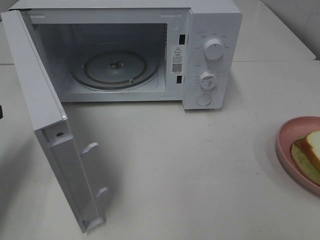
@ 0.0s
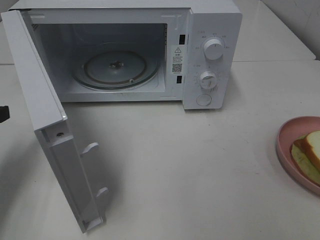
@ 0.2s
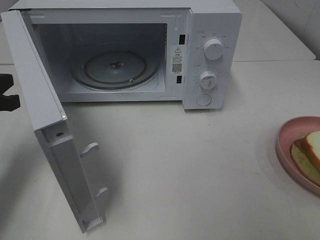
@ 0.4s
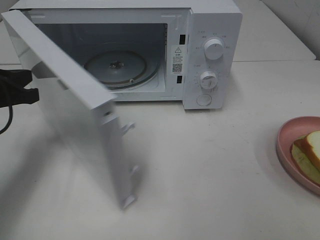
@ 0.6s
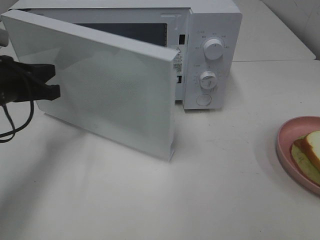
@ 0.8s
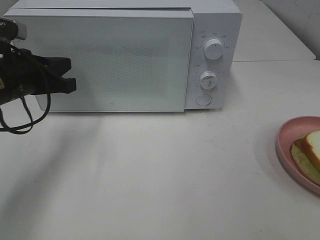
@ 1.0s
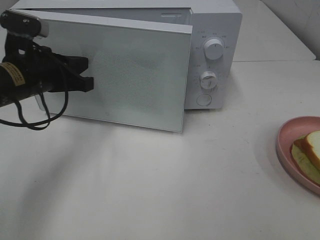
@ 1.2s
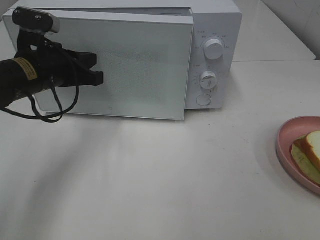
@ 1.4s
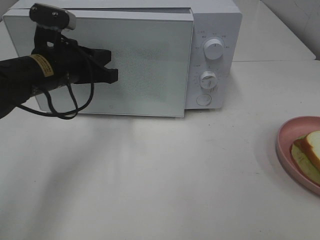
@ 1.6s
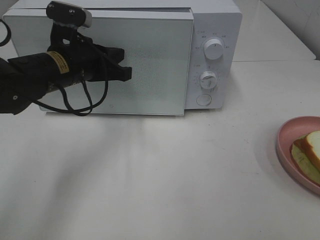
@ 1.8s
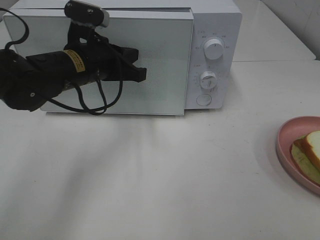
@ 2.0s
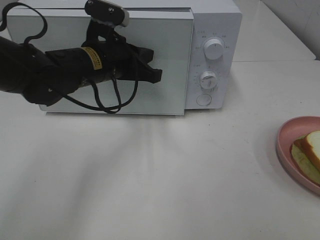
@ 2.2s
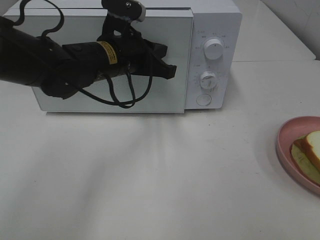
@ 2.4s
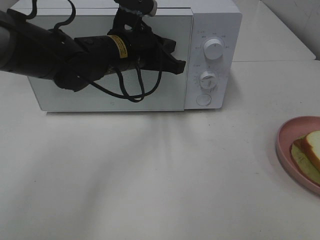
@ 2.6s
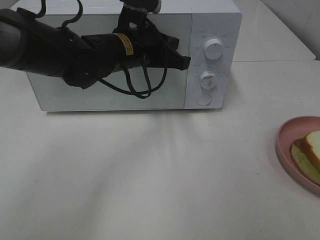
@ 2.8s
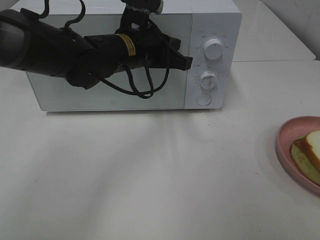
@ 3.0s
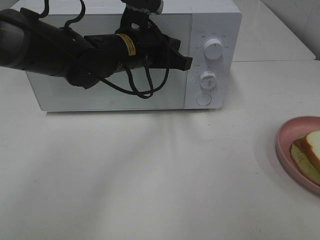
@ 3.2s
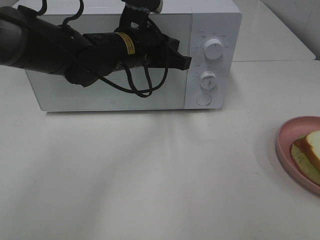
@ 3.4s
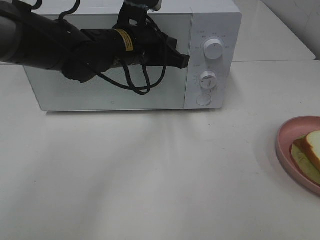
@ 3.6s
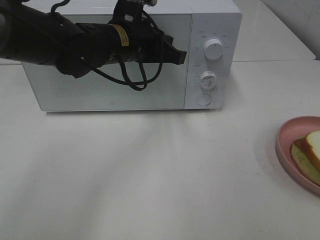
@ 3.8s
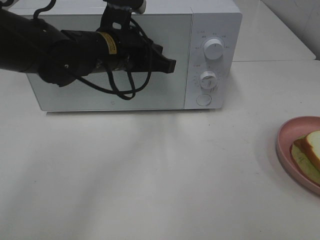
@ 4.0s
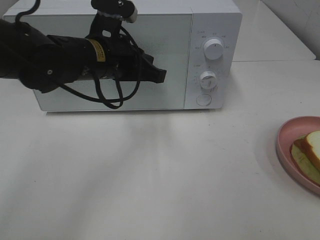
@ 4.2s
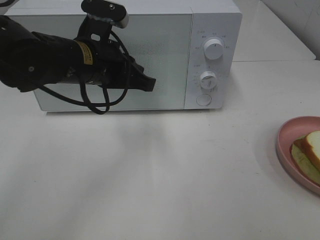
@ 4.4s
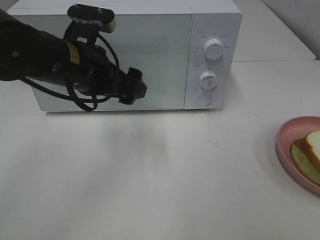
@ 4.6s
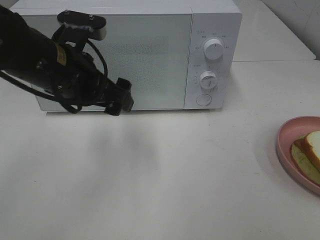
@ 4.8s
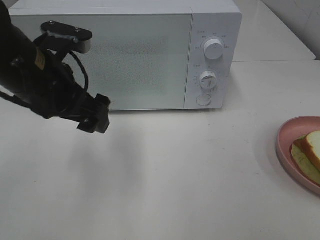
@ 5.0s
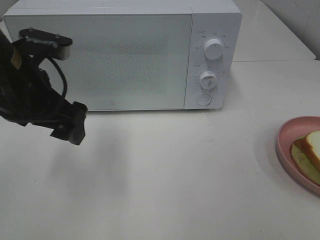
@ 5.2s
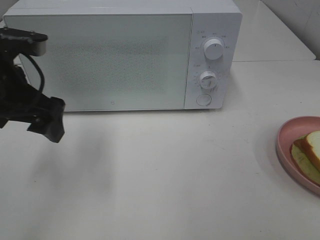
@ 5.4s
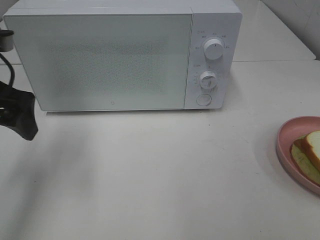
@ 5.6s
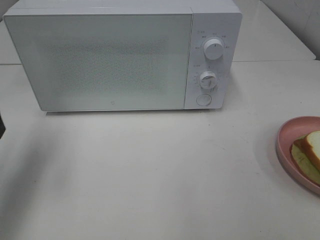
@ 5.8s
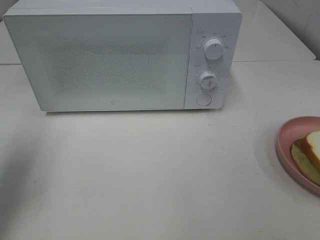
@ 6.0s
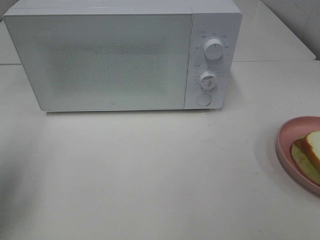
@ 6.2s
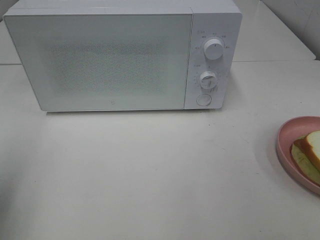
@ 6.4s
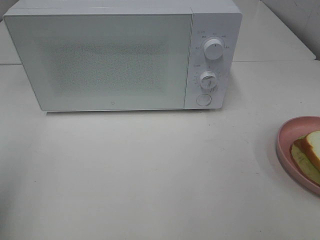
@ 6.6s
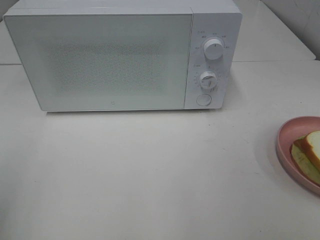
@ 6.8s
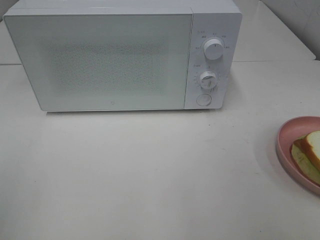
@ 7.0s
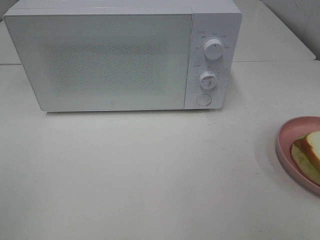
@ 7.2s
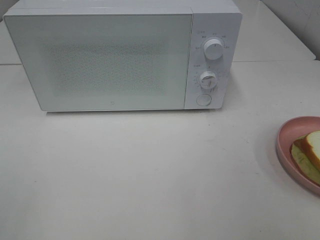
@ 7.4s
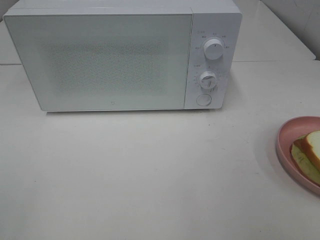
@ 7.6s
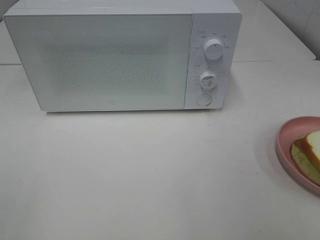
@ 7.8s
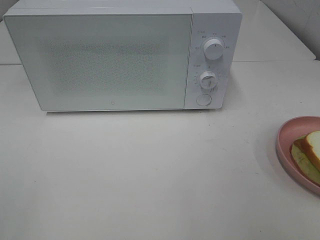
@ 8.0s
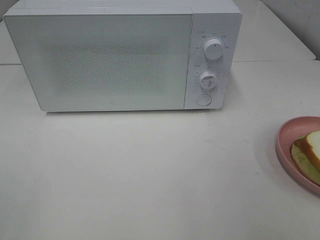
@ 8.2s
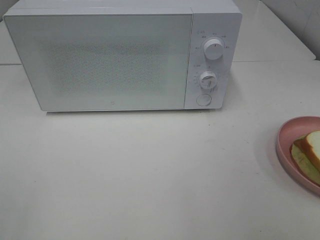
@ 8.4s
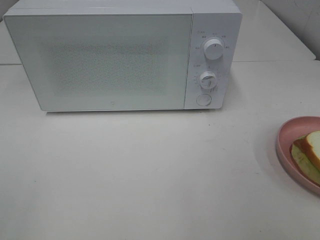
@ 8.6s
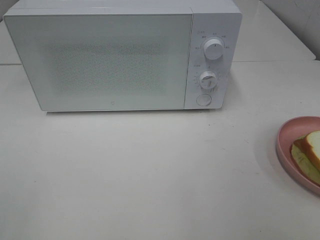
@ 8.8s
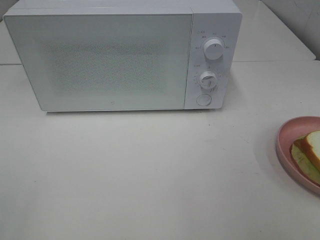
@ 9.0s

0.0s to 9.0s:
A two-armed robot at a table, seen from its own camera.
Task of the whole recording: Heat Sandwich.
Step, 0.0s to 3.6s: Left hand: close the microwave door.
0.0s to 1.6s: The left gripper is displaced to the right and forward by some 20 cm.
1.6s to 3.0s: The left gripper shifts about 10 cm to the right.
3.0s to 4.4s: The left gripper is displaced backward and to the left by roughly 10 cm.
4.4s to 6.0s: The left gripper moves to the left, about 20 cm, and opens.
6.0s to 7.6s: The left gripper moves backward, some 25 cm.
7.6s to 9.0s: The two grippers keep their place.
